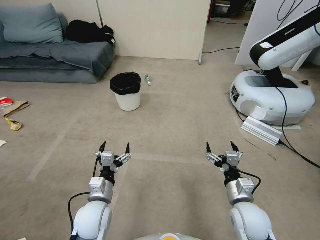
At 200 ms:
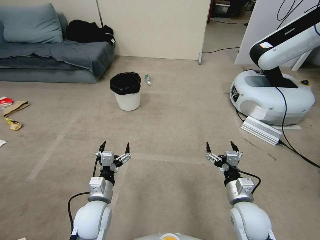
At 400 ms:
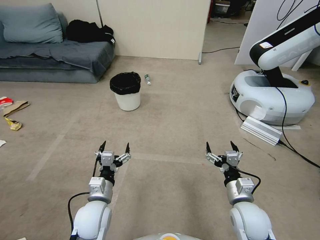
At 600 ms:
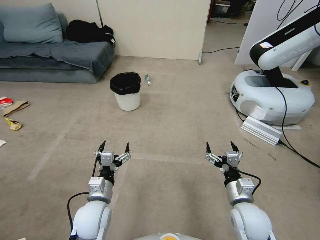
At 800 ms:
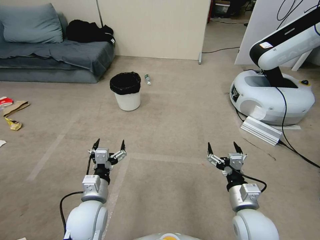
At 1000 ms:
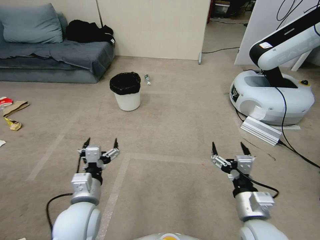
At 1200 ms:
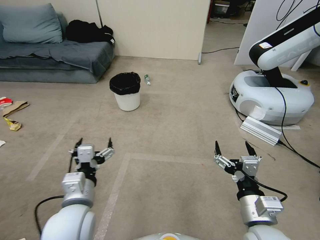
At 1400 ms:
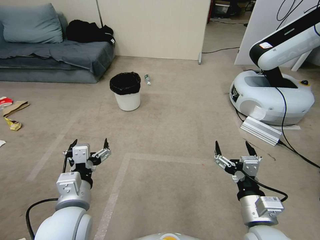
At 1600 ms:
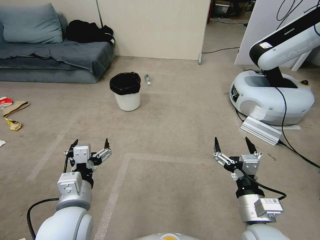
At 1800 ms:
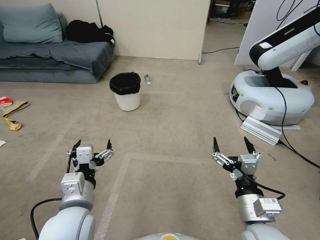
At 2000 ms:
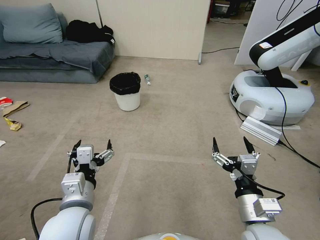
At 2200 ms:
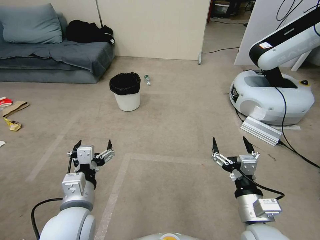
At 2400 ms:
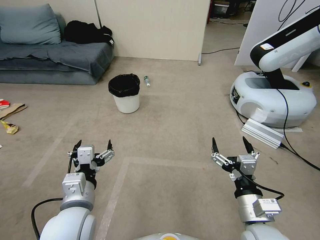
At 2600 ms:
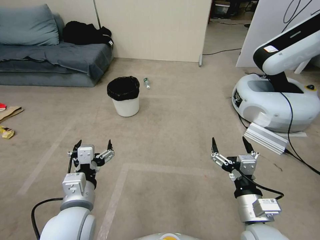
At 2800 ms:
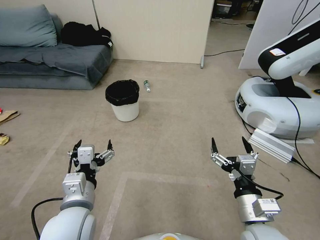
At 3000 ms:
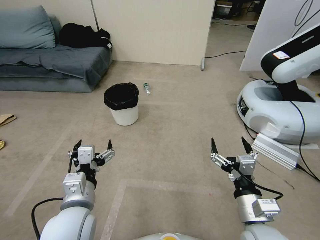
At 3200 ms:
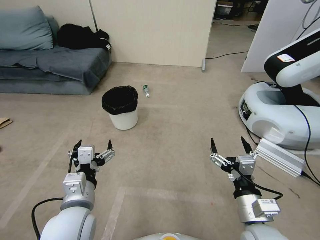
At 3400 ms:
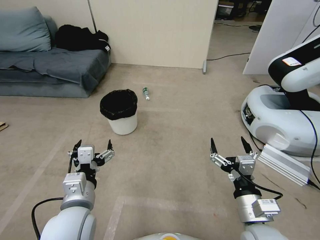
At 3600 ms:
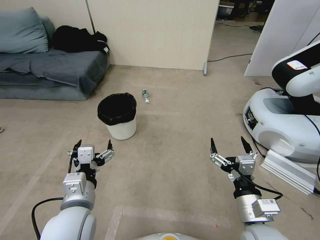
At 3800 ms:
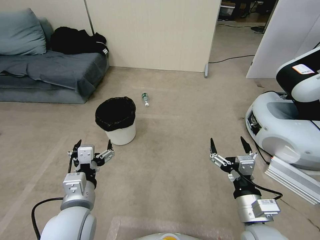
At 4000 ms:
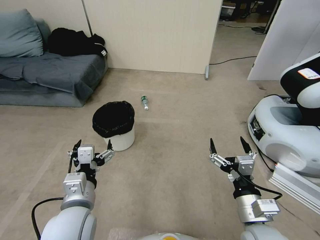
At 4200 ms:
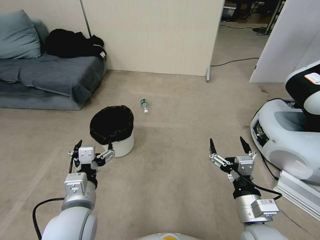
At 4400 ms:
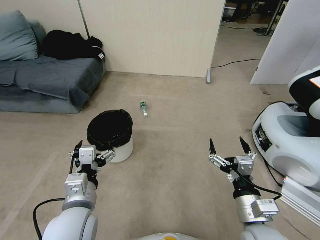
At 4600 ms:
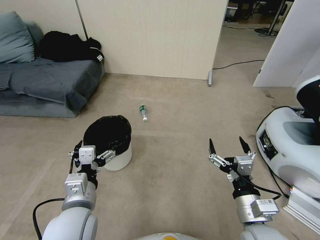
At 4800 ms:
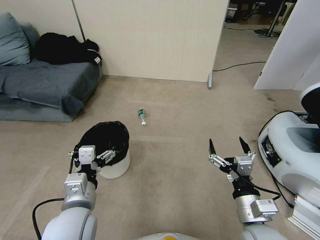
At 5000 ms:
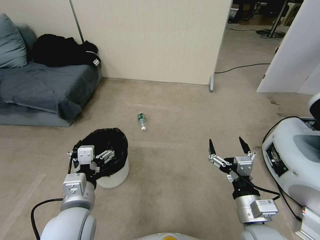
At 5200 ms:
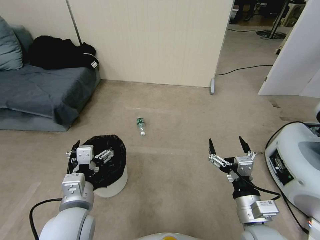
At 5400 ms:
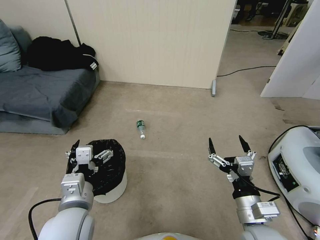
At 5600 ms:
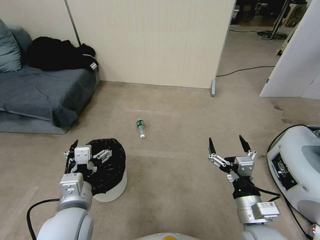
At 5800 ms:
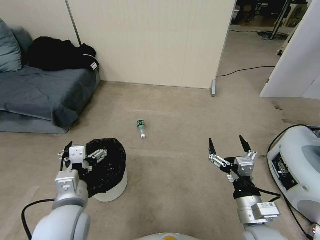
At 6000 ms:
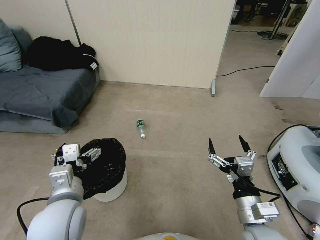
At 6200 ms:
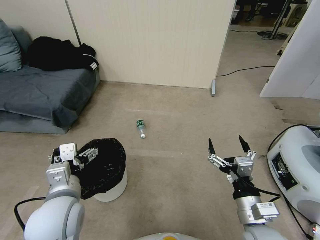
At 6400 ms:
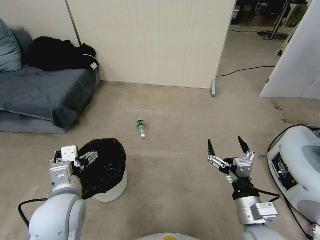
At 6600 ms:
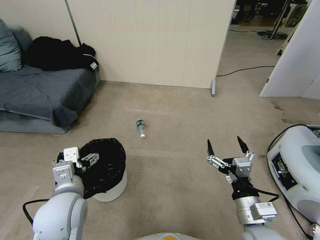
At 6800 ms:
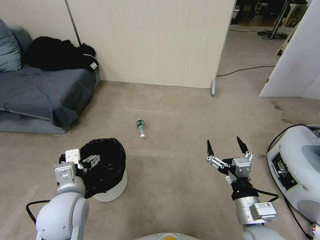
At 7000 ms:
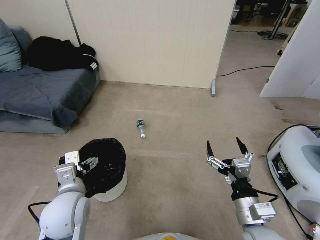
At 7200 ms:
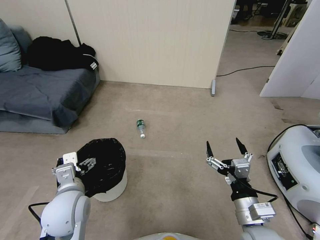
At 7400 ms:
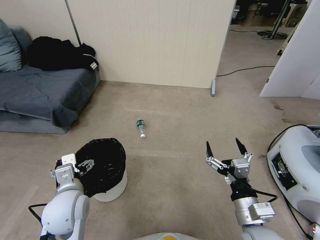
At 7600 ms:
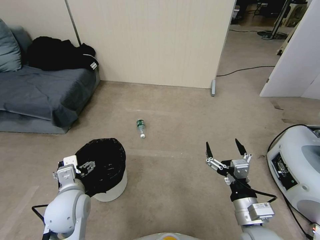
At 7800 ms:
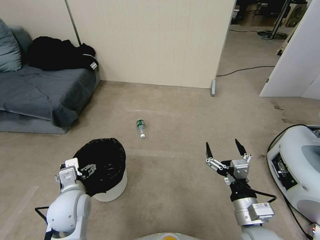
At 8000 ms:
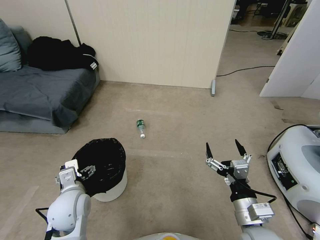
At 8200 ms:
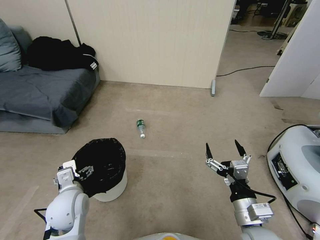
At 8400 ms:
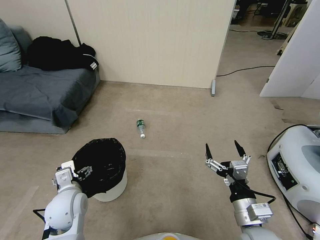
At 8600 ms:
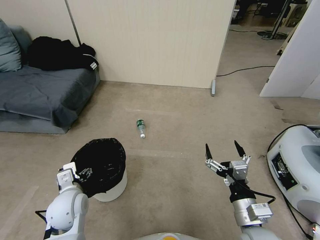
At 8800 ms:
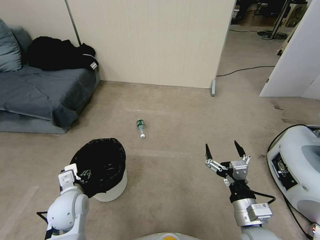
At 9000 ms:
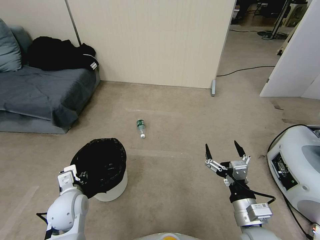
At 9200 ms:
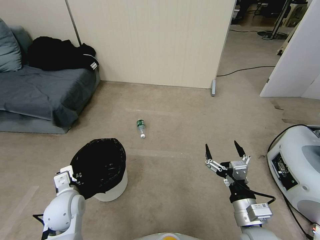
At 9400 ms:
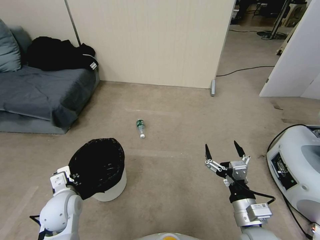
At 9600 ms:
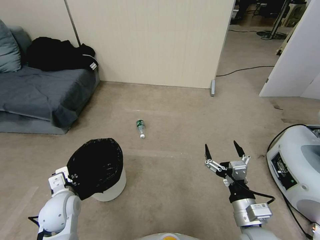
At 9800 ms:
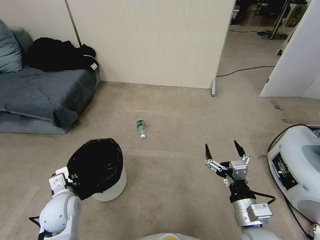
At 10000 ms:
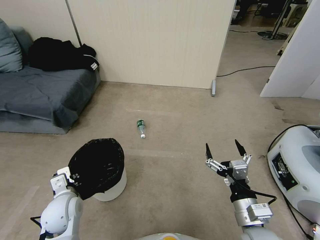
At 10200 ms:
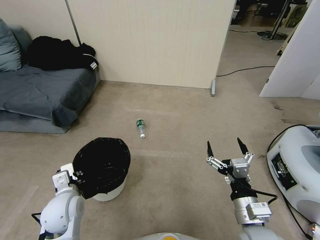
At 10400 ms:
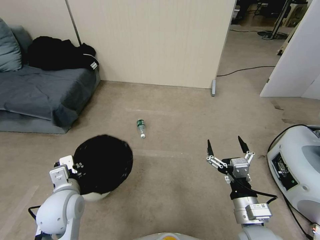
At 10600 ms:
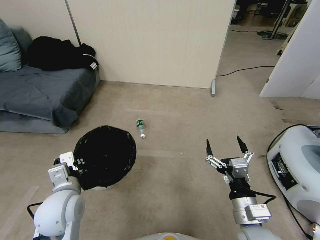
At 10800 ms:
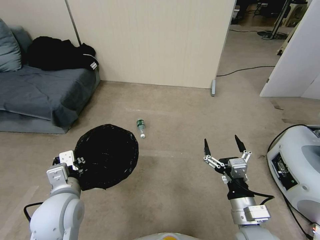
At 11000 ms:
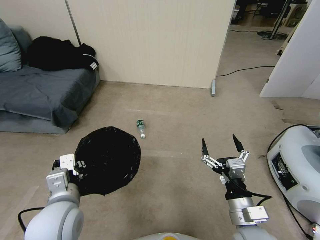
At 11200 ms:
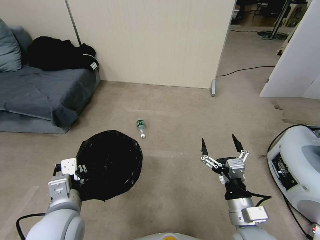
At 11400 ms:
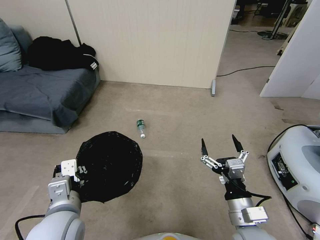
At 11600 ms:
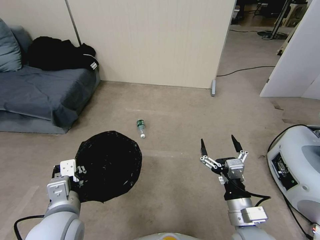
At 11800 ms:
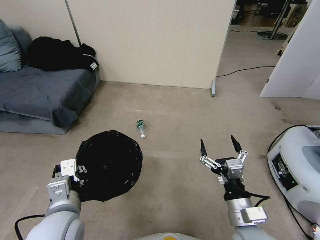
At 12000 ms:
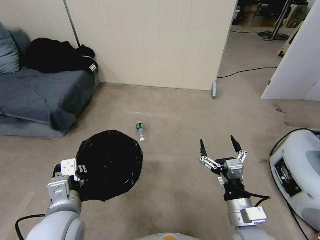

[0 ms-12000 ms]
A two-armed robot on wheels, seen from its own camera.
Task of the whole recording: Pick up the trash bin, then pick up the garbage from the floor and place it into the trash bin.
6000 ms to 7600 ms: The left gripper is displaced downward by about 5 cm.
7600 ms to 9000 ms: The left gripper moves downward, approximately 5 cm, and closes up.
9000 ms to 10400 ms: The left gripper moves upward, some 5 cm, and closes up.
10400 ms to 12000 ms: The left gripper travels backward and upward by approximately 10 cm.

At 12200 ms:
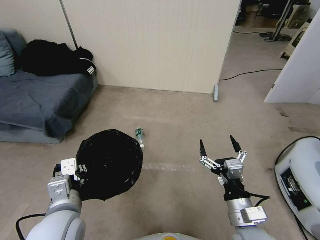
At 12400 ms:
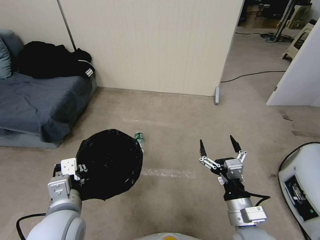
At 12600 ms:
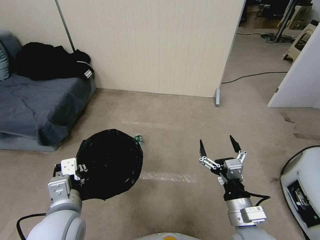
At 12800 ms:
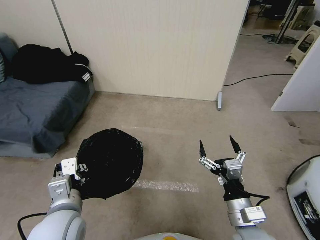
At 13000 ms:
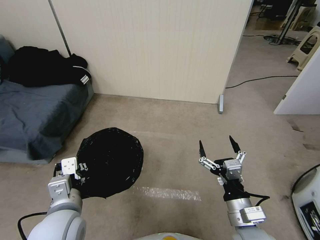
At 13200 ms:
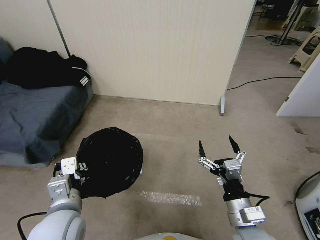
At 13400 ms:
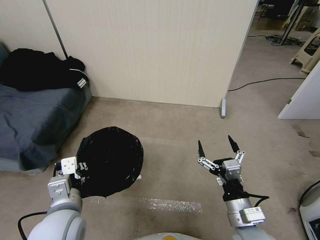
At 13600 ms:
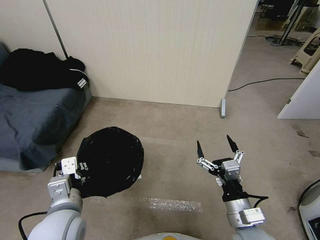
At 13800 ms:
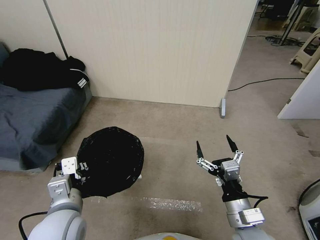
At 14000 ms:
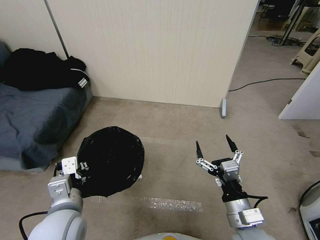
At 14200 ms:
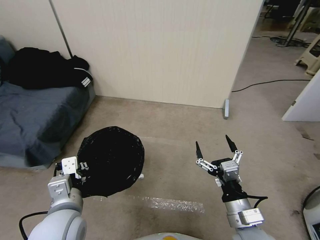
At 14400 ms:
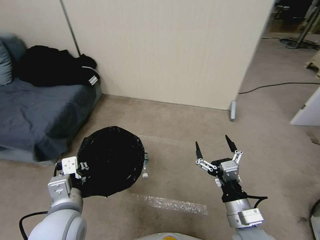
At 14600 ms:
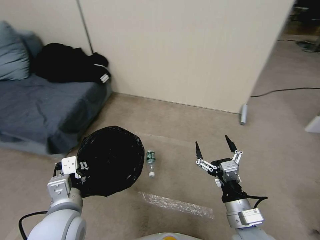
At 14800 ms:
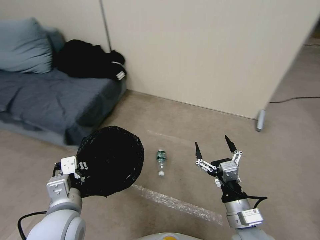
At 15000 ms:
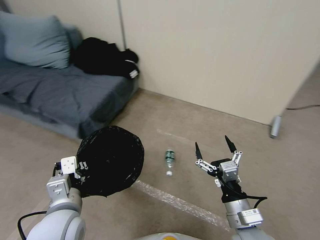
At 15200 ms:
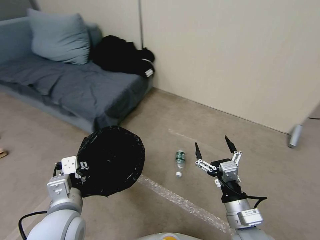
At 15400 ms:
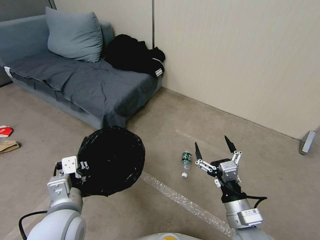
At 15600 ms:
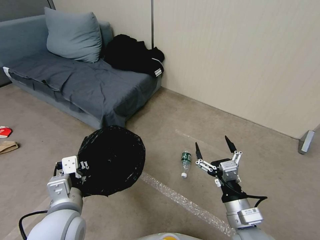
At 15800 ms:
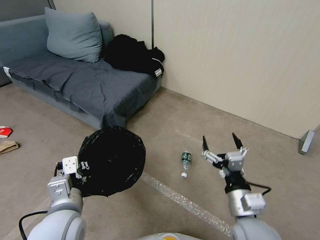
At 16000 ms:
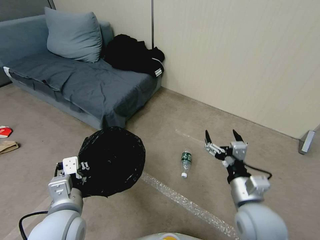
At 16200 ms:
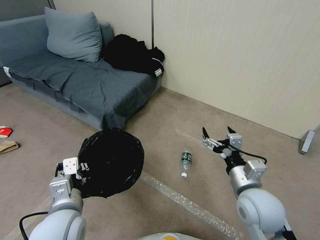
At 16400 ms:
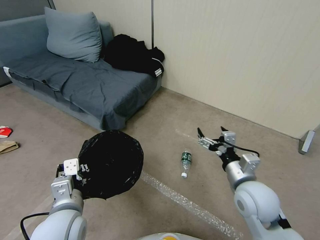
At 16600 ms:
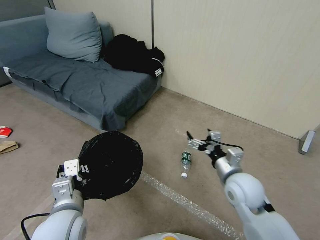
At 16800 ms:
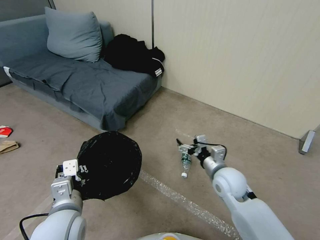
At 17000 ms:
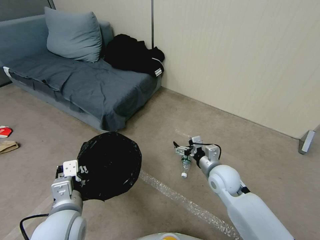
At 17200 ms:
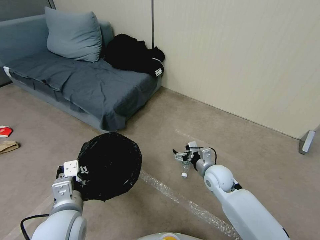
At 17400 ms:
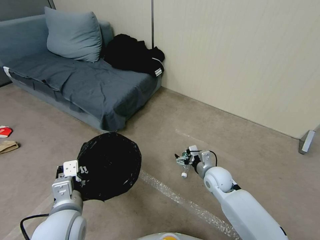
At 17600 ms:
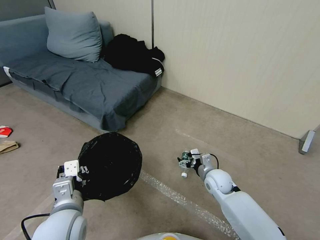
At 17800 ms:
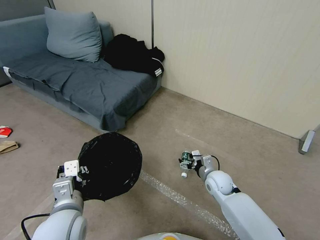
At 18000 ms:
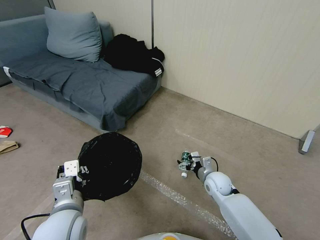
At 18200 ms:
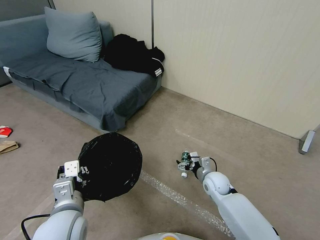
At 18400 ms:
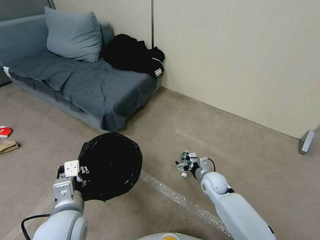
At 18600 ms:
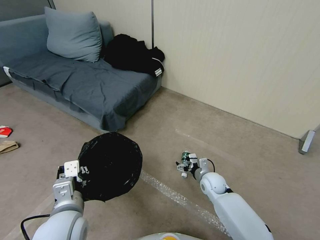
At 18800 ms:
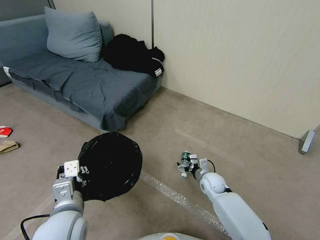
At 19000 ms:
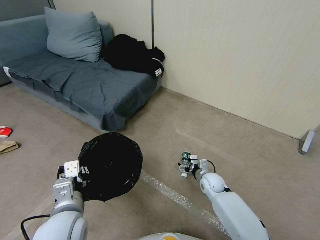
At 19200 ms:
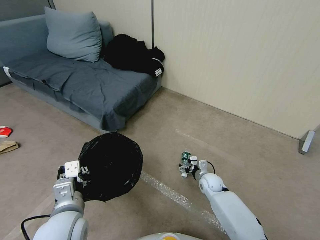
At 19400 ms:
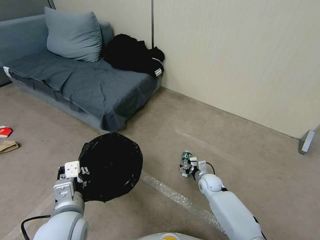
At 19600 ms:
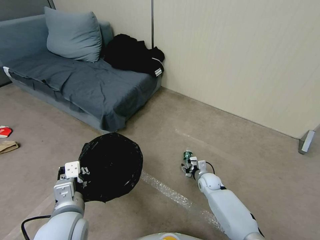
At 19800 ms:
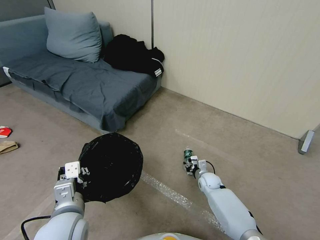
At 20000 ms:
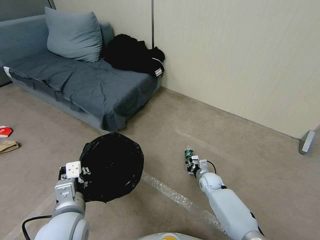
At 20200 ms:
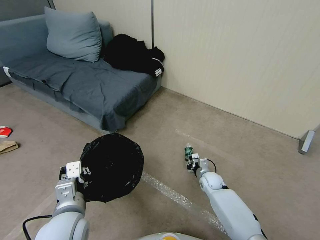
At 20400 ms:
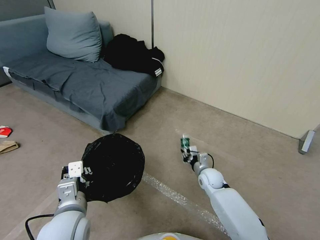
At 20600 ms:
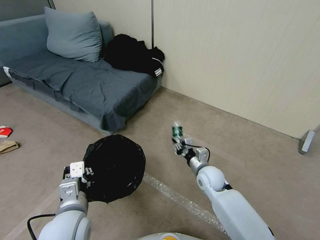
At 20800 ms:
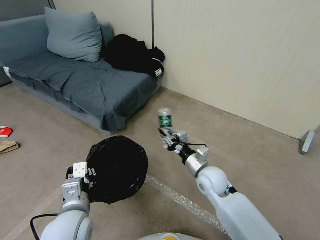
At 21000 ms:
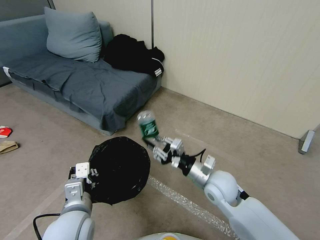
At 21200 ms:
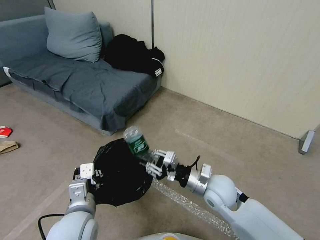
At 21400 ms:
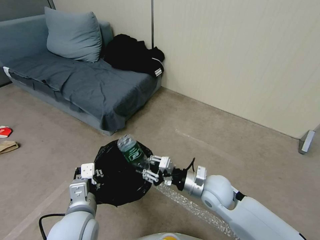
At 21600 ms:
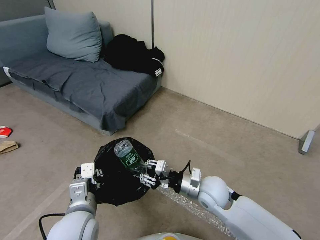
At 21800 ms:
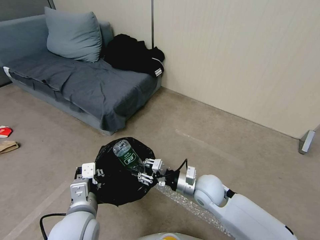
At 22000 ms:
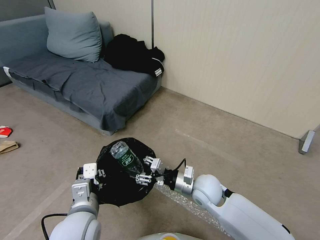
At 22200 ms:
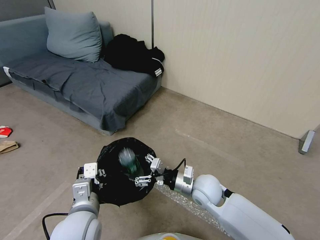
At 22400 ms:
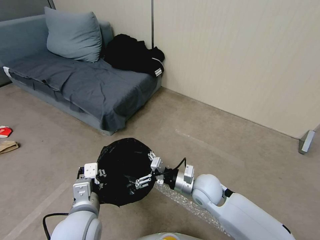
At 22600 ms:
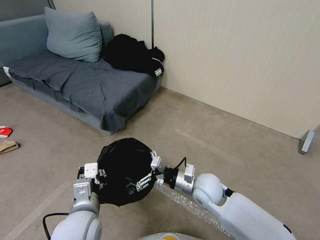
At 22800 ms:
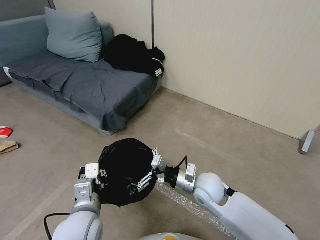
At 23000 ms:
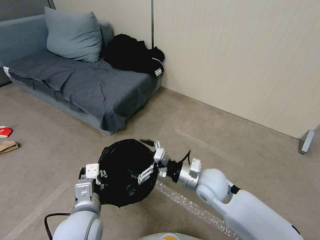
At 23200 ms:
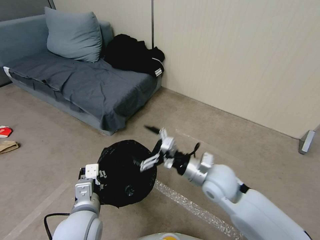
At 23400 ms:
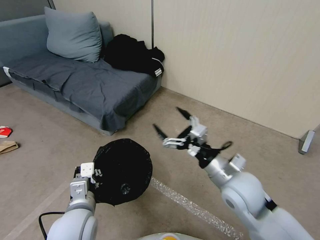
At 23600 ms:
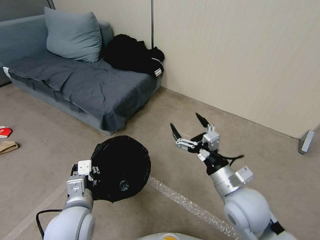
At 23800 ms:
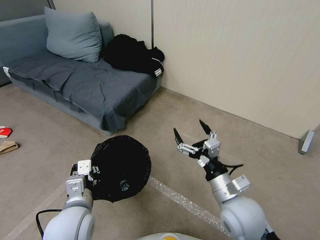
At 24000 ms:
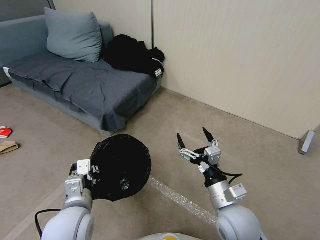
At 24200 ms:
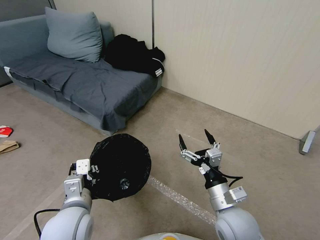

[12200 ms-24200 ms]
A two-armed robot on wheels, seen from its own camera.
Task of the whole recording: Pick up the trash bin, then pick up the garbage from the floor and place it into the trash bin.
15200 ms to 16600 ms: The right gripper travels forward by some 15 cm.
16600 ms to 18200 ms: The right gripper heads downward and forward, covering approximately 20 cm.
18200 ms to 19800 ms: The right gripper travels downward by about 10 cm, and closes its fingers.
19800 ms to 21200 ms: The right gripper heads upward and backward, covering roughly 25 cm.
21200 ms to 22600 ms: The right gripper opens.
22600 ms to 24200 ms: The right gripper moves backward, approximately 10 cm.
